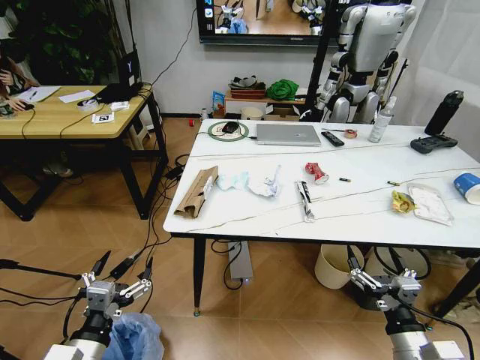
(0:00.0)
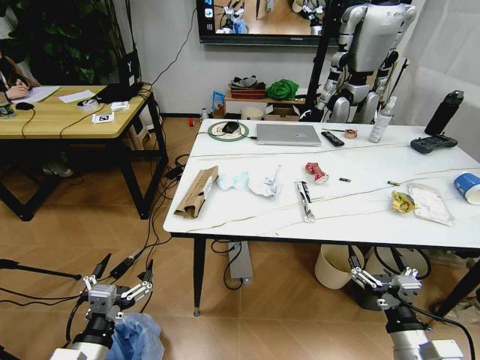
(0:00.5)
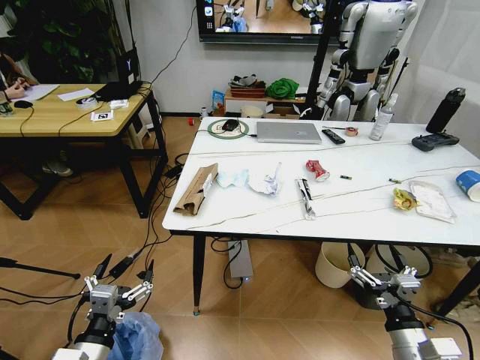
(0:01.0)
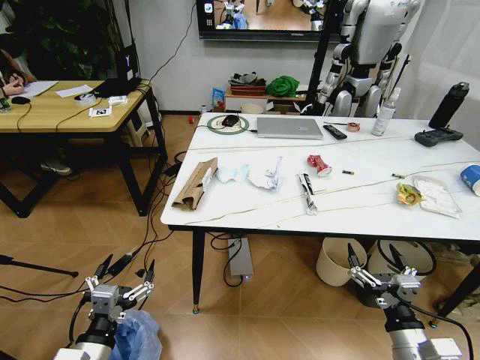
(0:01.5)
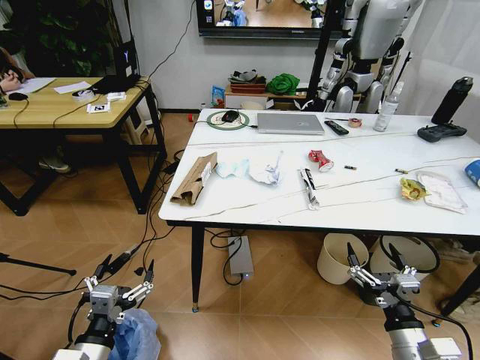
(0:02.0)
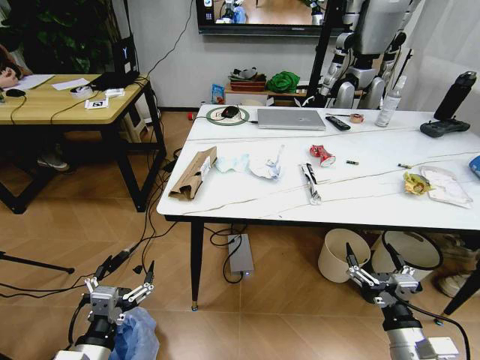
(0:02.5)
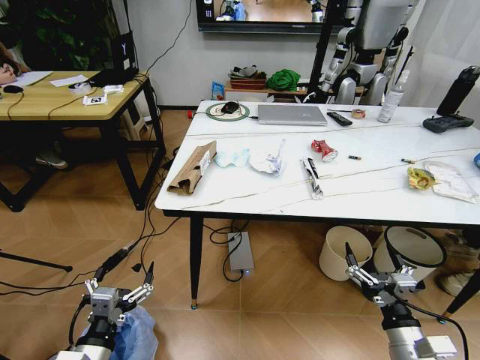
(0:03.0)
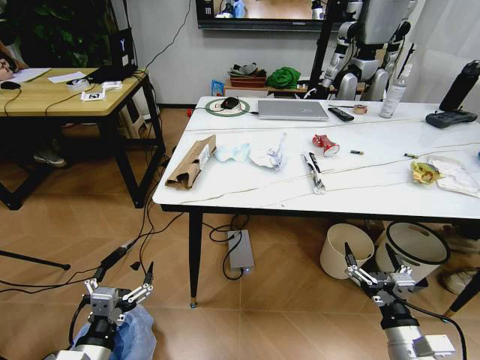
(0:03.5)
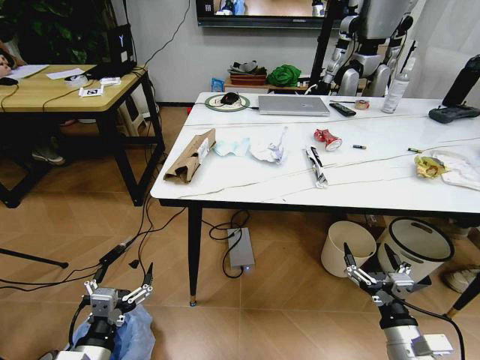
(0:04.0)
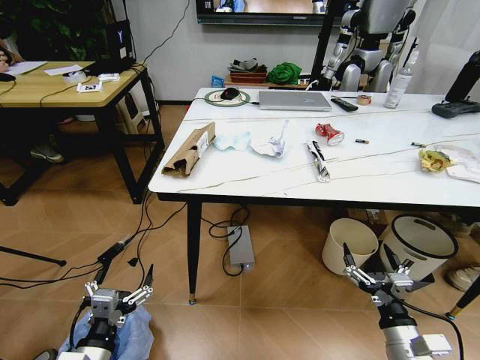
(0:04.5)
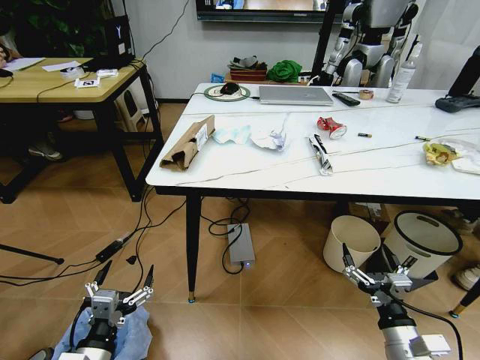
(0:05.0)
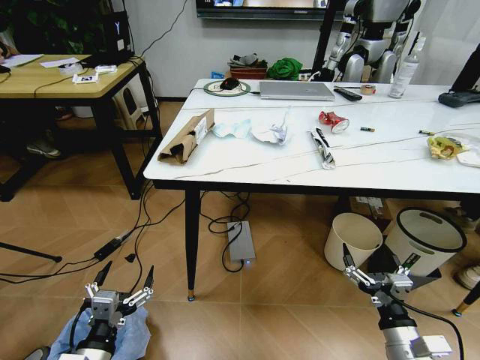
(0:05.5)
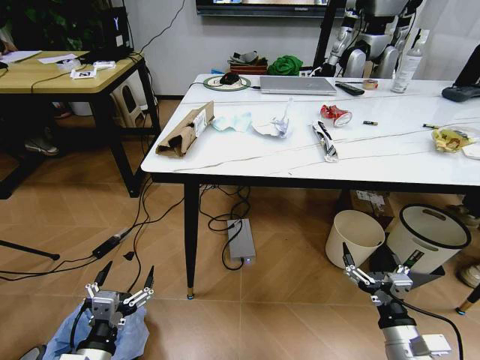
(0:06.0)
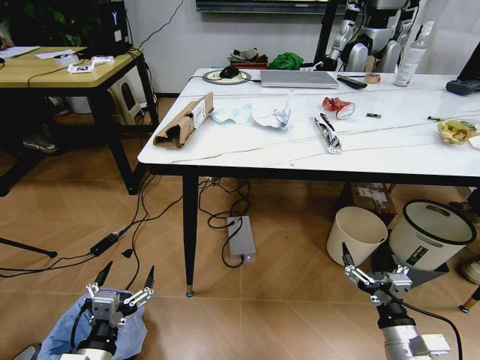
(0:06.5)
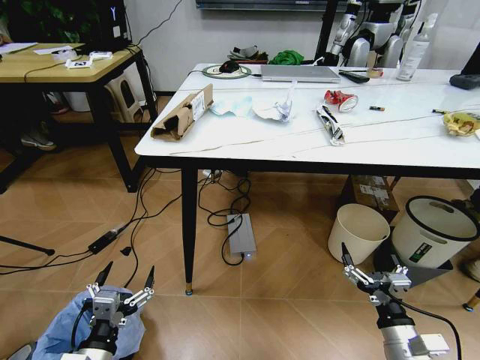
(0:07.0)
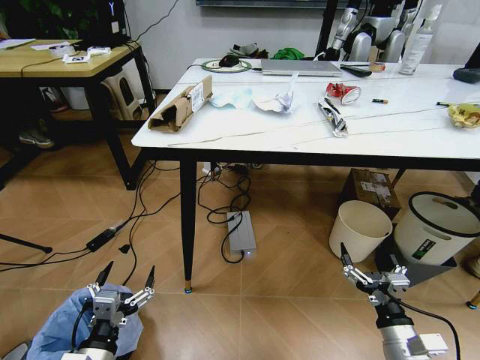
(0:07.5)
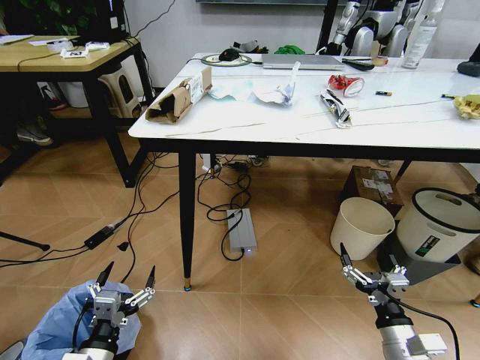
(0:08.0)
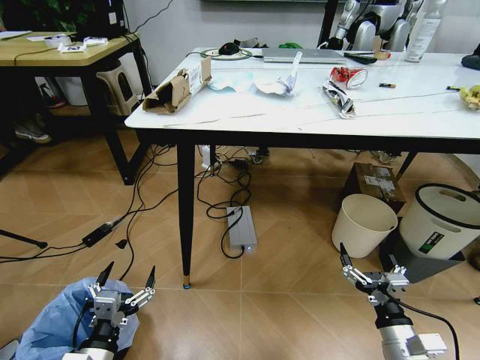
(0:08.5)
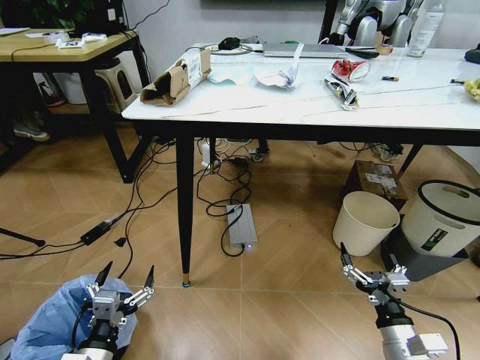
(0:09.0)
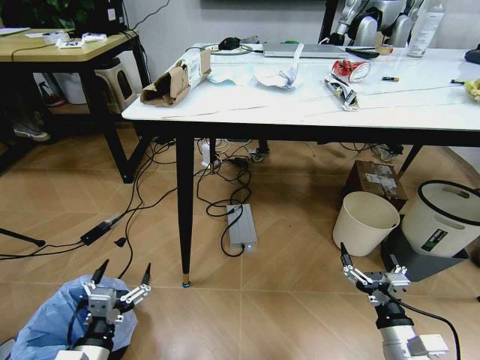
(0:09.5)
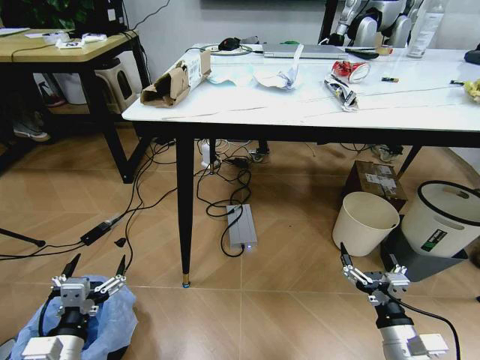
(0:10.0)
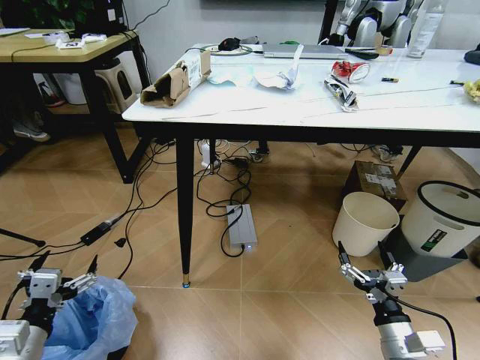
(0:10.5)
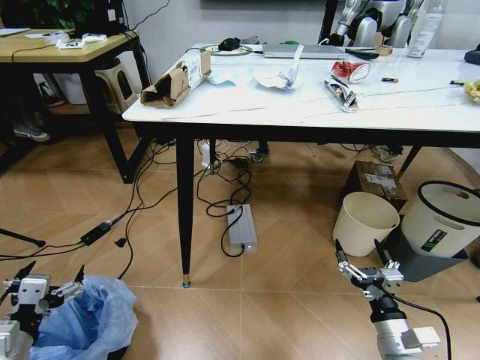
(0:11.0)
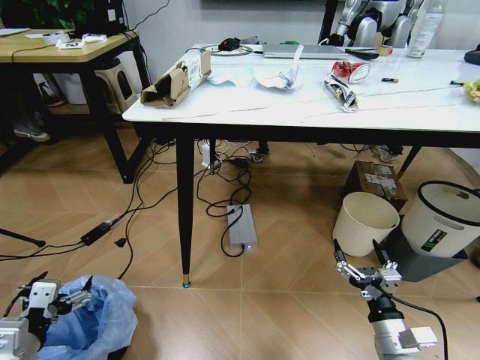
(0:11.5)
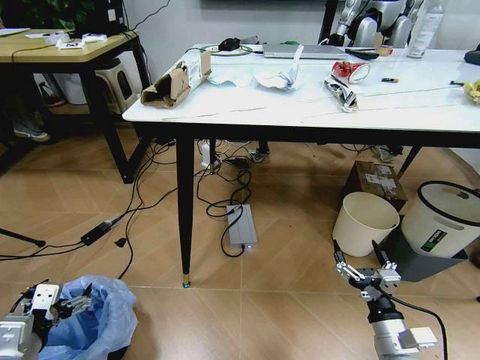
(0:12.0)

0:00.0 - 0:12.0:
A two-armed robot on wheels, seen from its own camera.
Task of the whole recording: Pick up the trash bin and place the trash from the table into it.
0:08.0 - 0:10.0: The left gripper shifts by some 5 cm.
0:10.0 - 0:12.0: The left gripper travels to the left by some 5 cm.

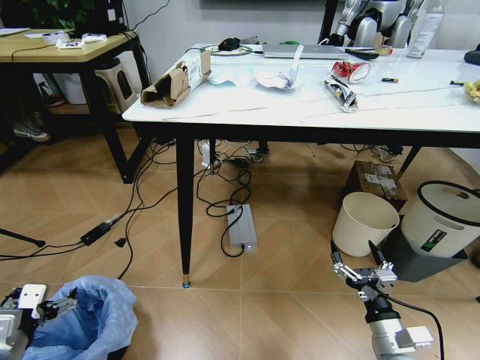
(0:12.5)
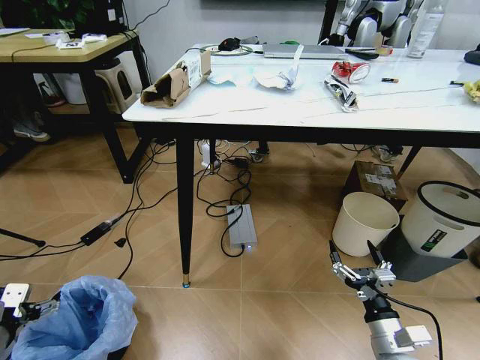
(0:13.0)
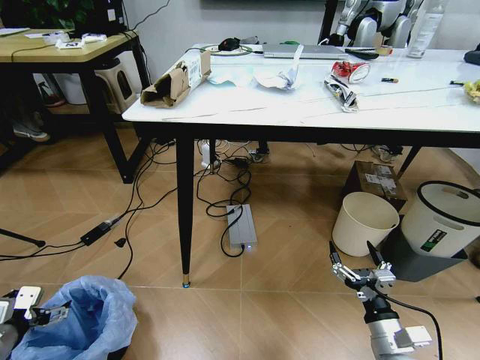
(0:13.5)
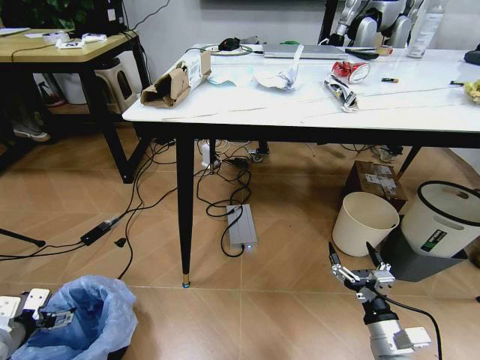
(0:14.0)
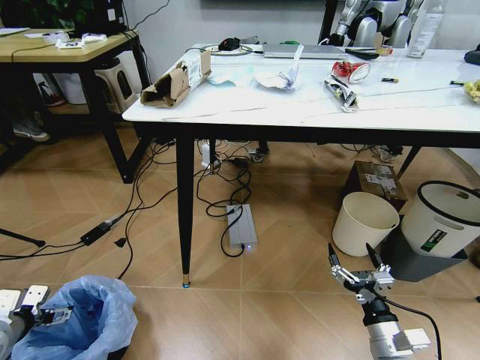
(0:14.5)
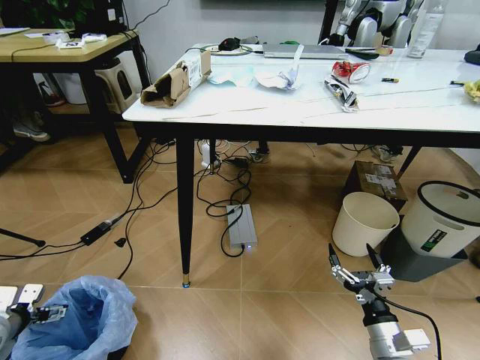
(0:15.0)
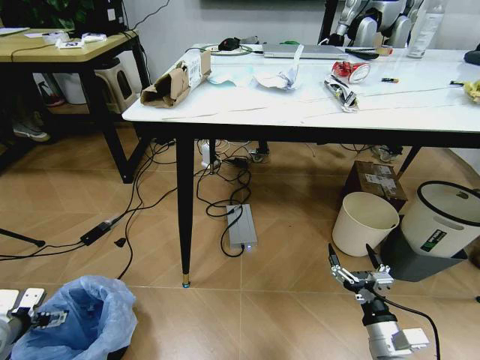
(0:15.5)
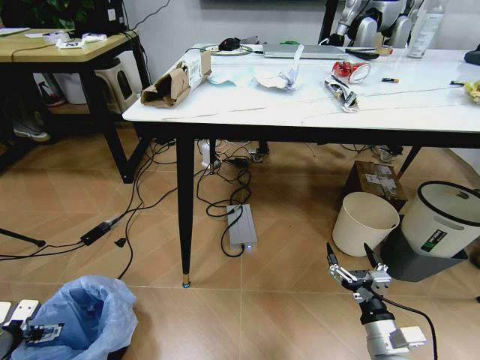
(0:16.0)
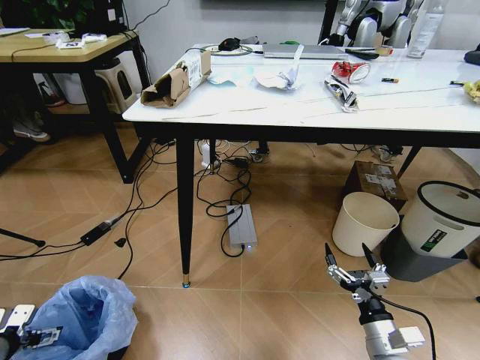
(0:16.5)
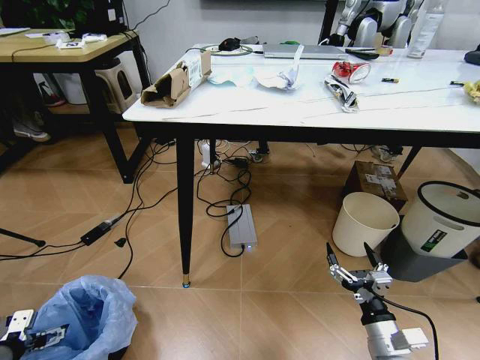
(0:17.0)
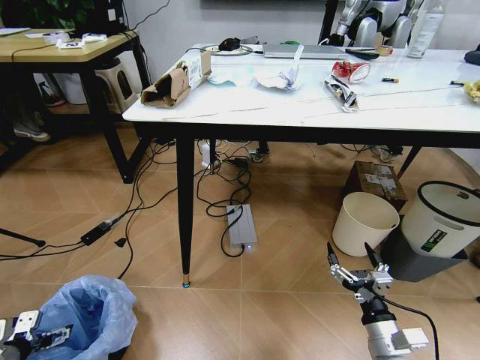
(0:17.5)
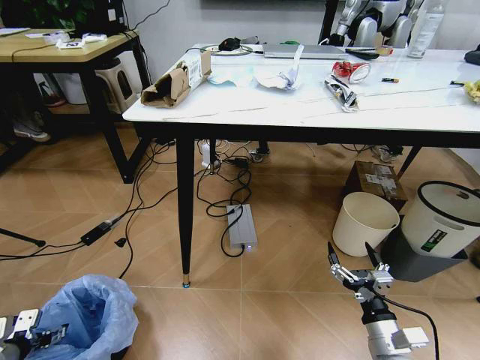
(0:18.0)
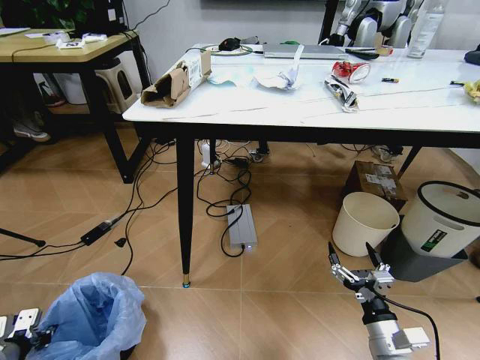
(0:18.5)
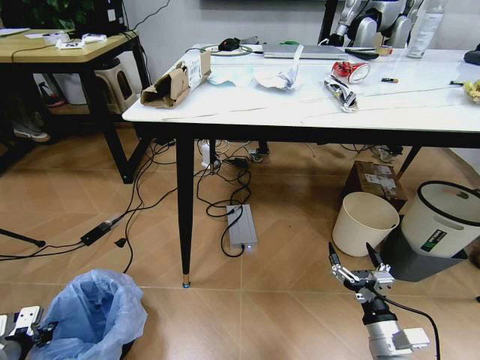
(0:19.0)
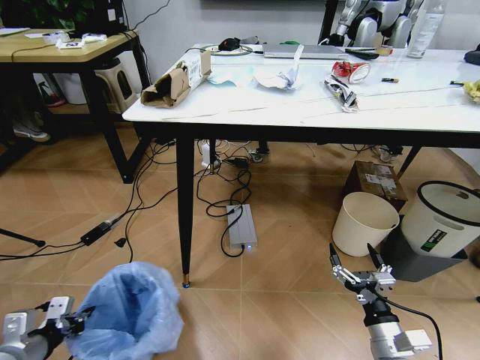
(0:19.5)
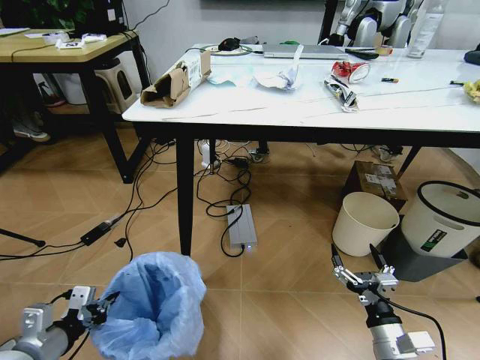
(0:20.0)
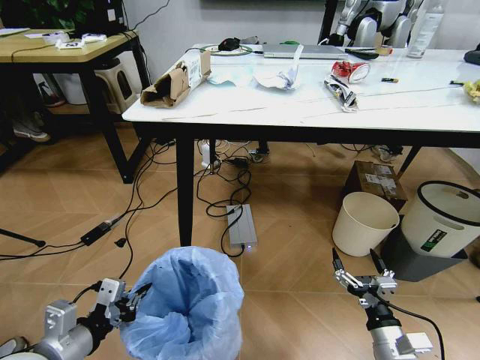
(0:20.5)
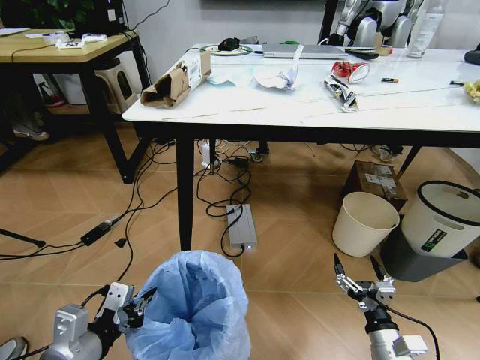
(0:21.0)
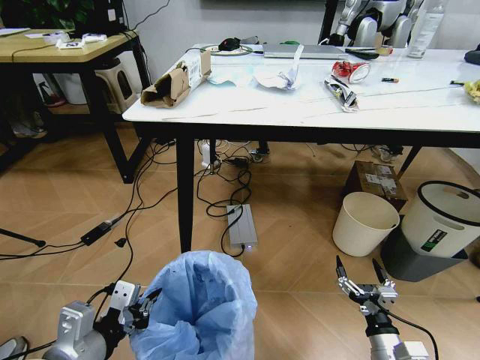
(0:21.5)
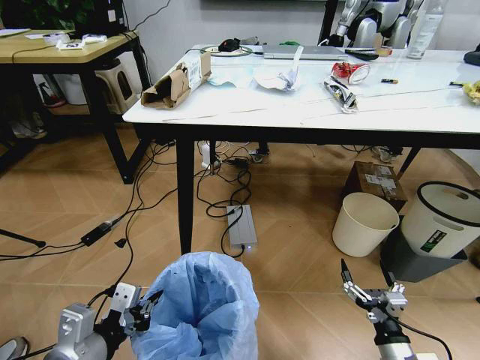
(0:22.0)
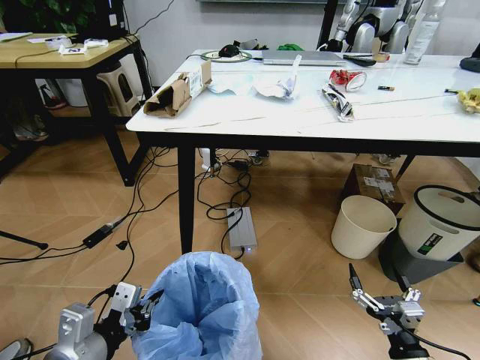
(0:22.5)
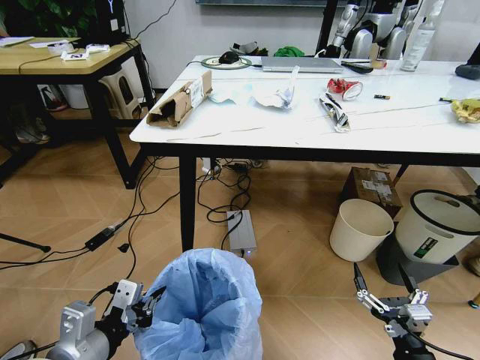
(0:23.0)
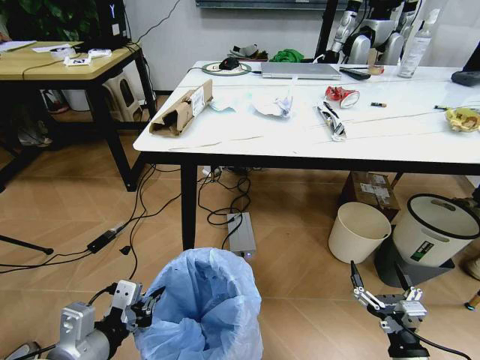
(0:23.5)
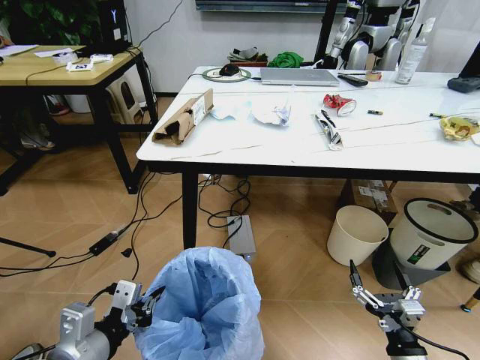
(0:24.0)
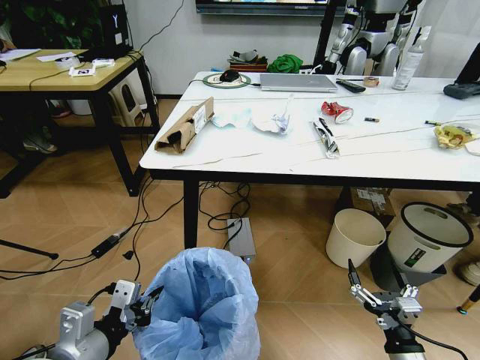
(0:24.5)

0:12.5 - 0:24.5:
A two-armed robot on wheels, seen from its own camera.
Task of the whole recording: Pick up the trash bin and place the trash from the table into it.
0:12.5 - 0:14.5: The left gripper shifts about 10 cm to the left and forward.
0:14.5 - 0:16.5: There are only small adjustments of the grippers.
0:16.5 - 0:18.5: The left gripper closes.
0:18.5 - 0:20.5: The left gripper heads to the right and upward, covering about 20 cm.
0:20.5 - 0:22.5: The left gripper ends up some 5 cm from where it was. Meanwhile the right gripper heads backward, covering about 5 cm.

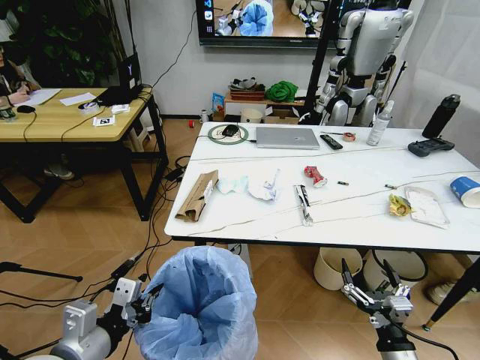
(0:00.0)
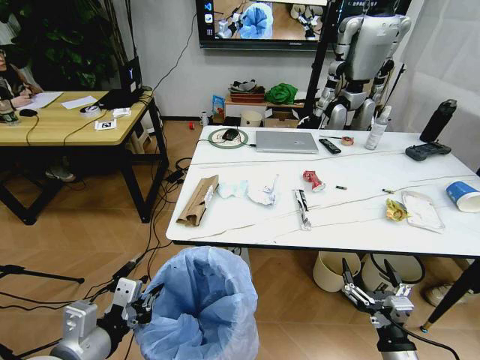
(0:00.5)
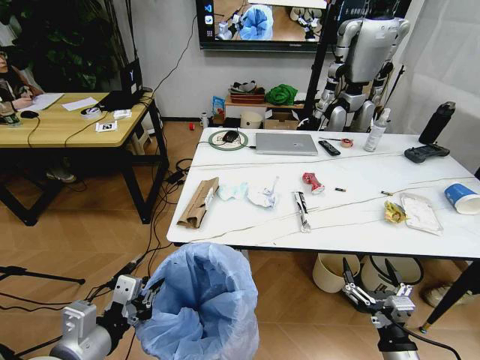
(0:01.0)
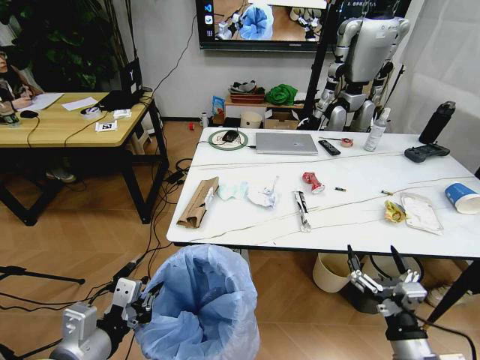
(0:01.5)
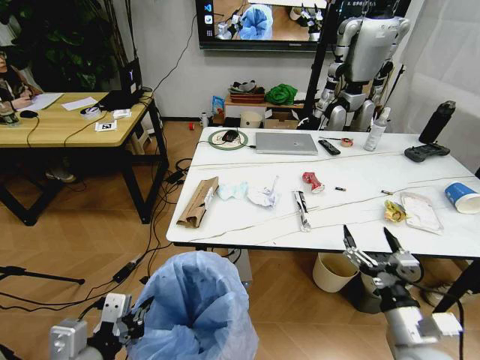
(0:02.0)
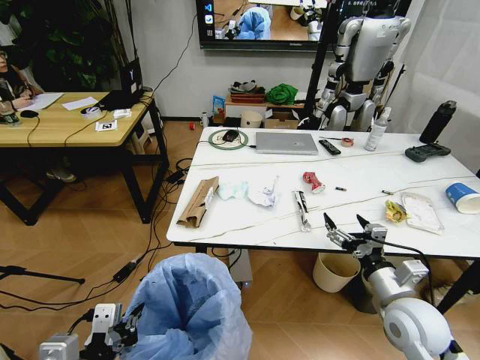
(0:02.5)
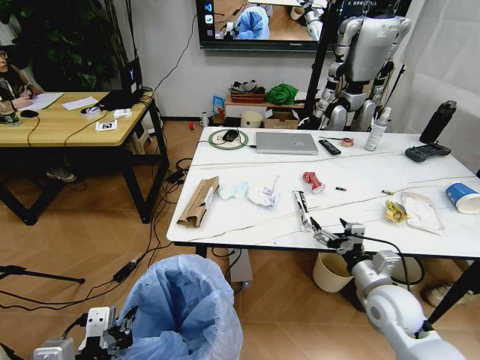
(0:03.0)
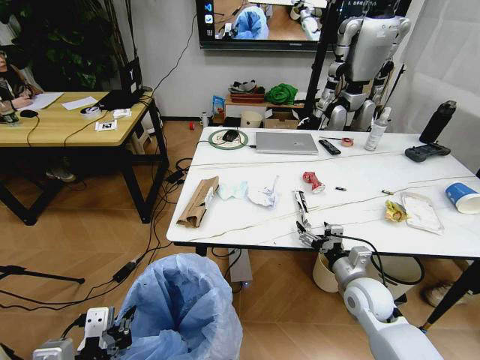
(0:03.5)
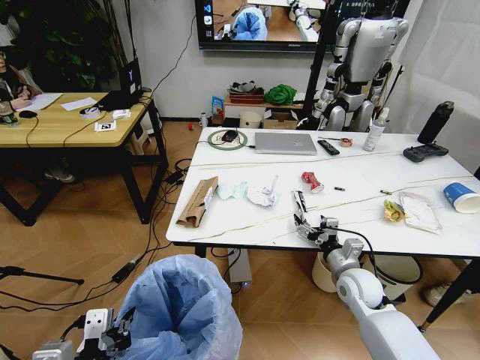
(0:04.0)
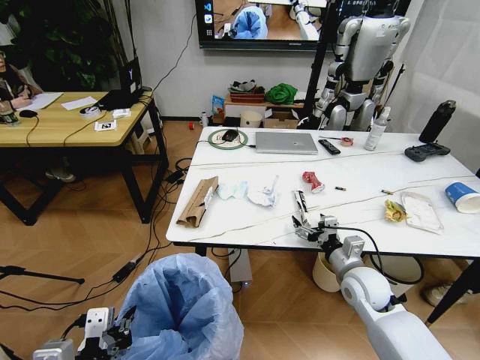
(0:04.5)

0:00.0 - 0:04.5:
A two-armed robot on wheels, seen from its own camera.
Task of the whole recording: Pick up the trash bin and place the trash from the table into it.
0:00.0 - 0:02.0: The right gripper moves upward and forward, some 10 cm.
0:02.0 - 0:04.5: The right gripper shifts roughly 15 cm forward.
